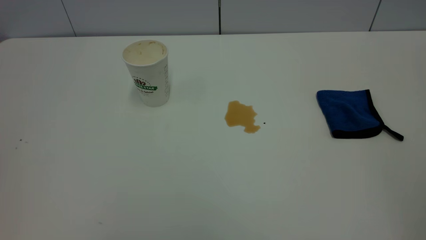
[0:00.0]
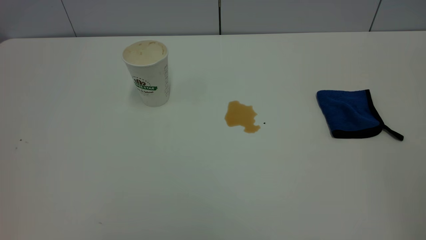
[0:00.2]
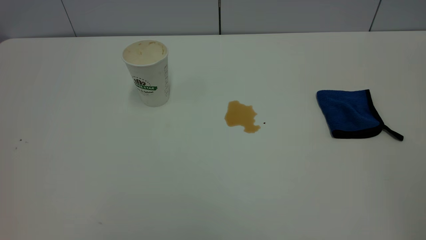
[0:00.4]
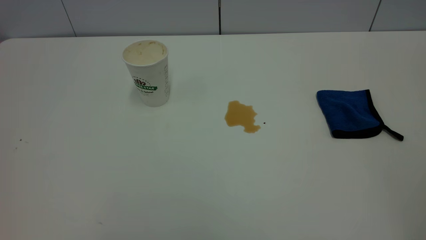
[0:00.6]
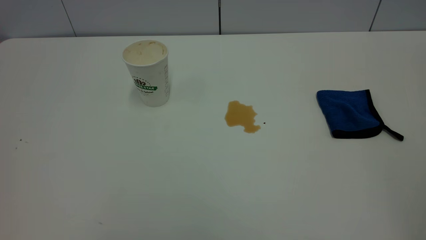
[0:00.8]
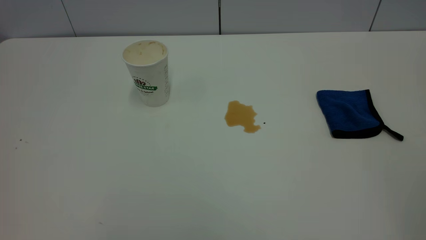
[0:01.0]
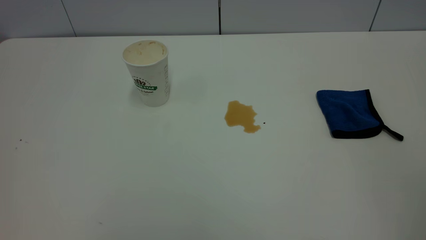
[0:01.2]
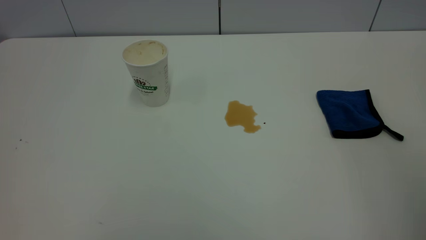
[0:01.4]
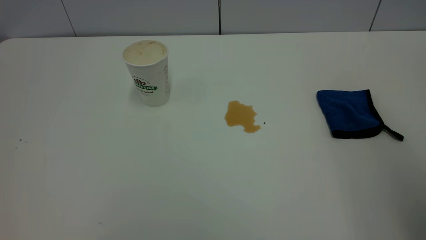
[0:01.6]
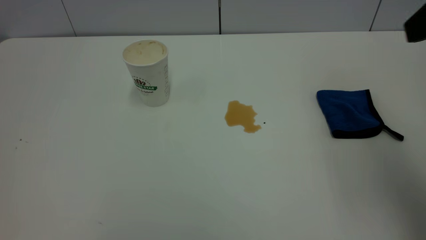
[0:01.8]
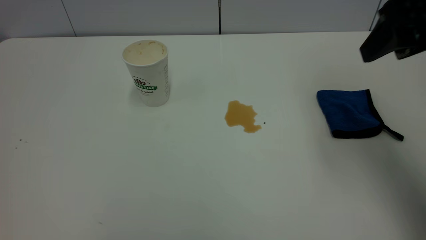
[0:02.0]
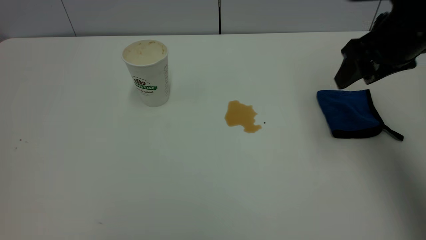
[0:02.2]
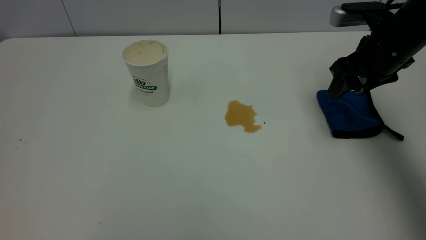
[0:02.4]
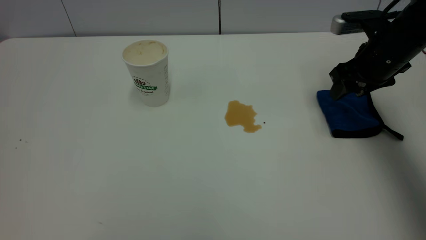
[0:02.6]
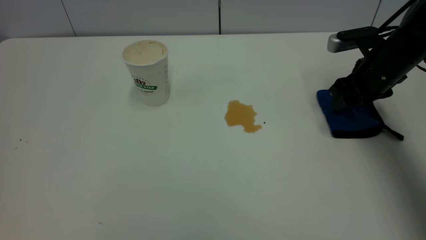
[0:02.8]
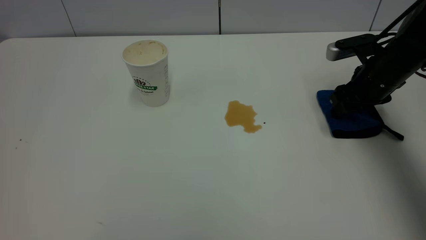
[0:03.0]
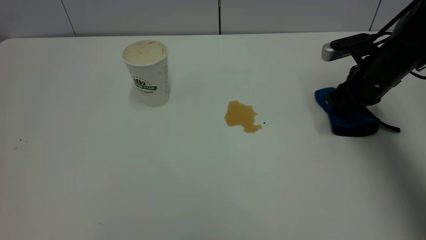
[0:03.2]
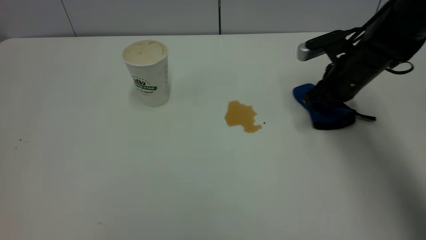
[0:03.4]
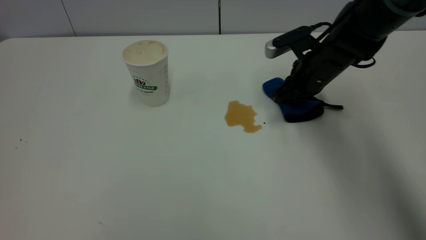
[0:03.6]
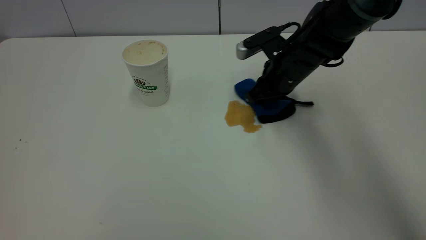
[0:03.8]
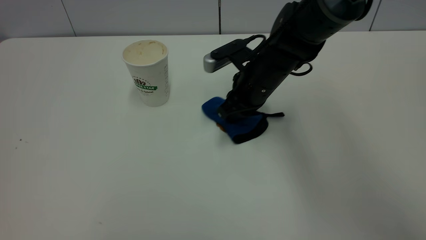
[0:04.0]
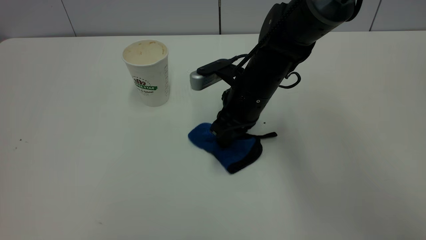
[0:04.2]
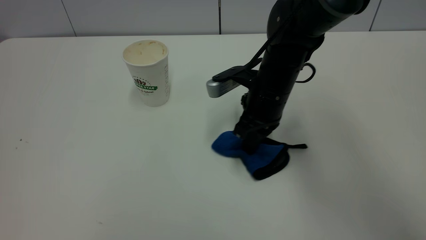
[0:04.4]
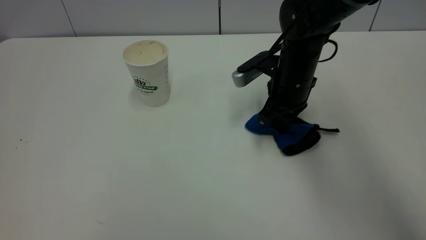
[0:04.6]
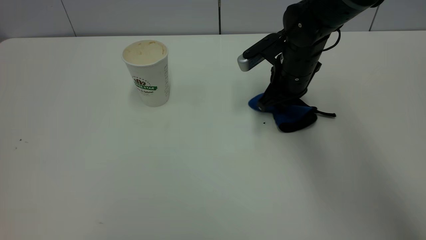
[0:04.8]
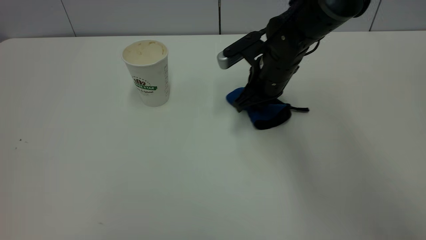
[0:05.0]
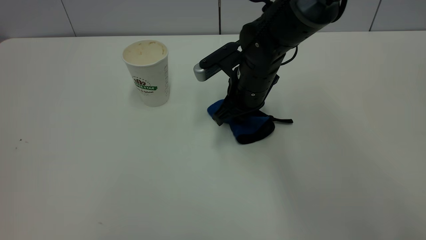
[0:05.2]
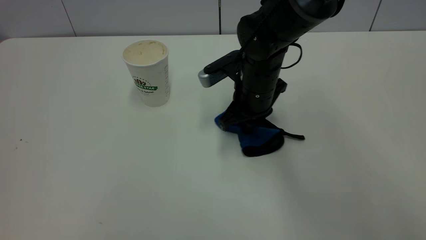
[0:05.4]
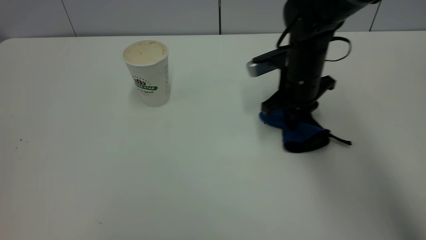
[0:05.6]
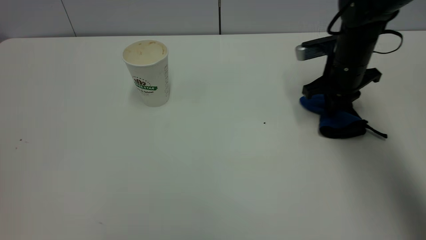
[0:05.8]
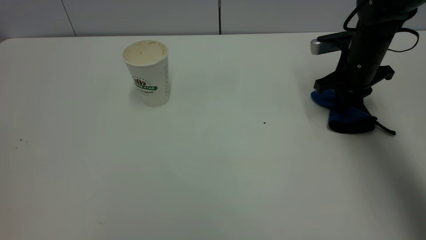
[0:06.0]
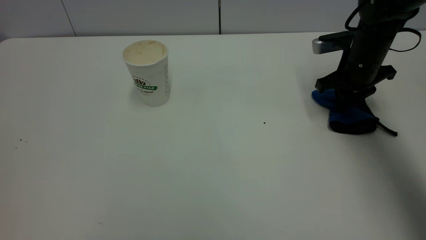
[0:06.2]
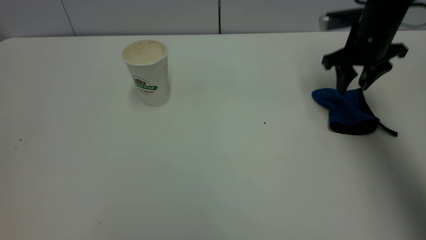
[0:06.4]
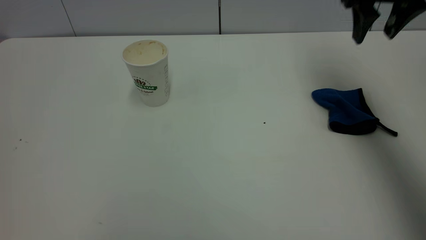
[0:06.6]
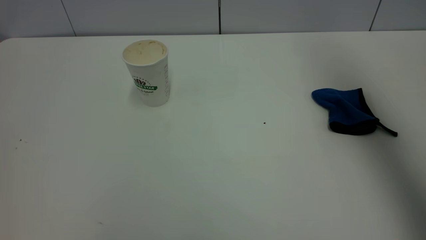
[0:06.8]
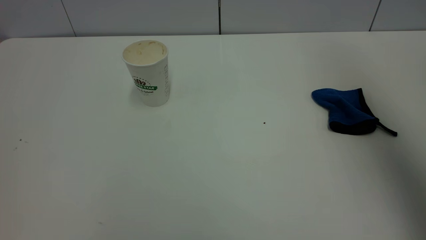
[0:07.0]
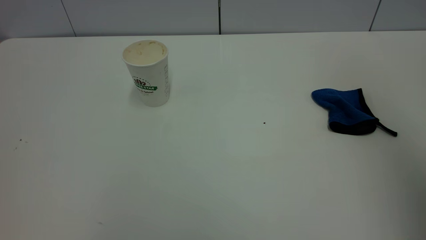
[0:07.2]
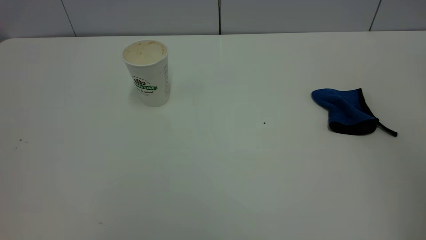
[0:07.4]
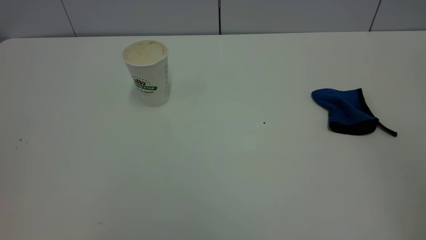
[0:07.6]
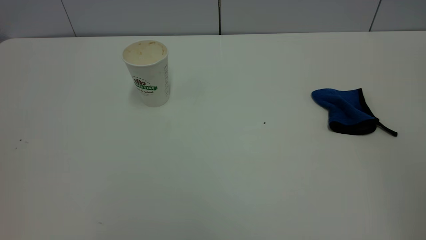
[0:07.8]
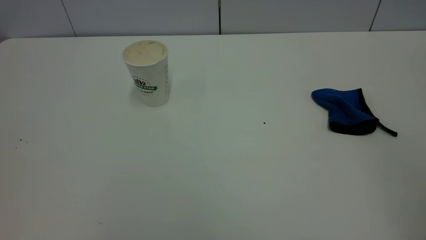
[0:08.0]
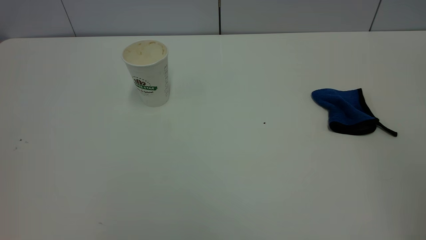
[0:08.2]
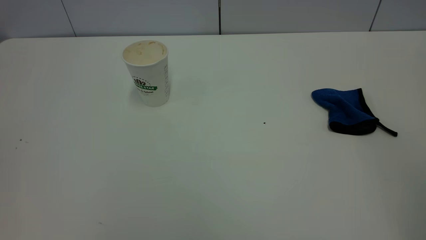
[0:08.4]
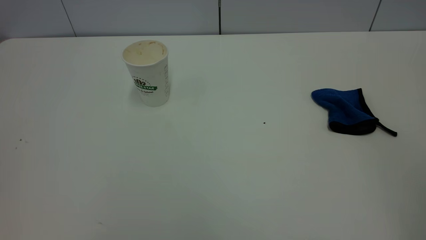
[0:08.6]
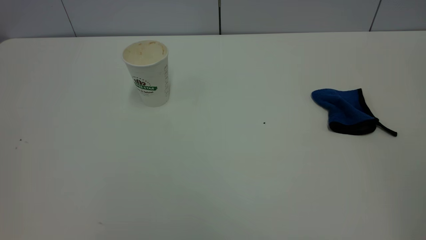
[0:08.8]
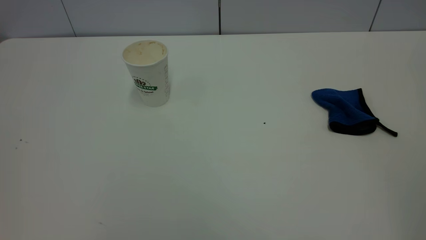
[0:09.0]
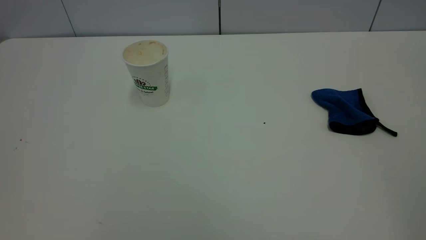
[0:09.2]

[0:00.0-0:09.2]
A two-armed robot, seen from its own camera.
Task of the whole recording: the left gripper pick up the fallen cup and place it upright, the right gripper grasp the blue rag and wipe the tea stain on the table, the right gripper put the blue rag back in its original position.
Step, 0:00.0 to 0:06.4: Wipe the stains off the table with a rag.
0:01.6 to 0:03.0: The right gripper is displaced downward and forward by some 35 cm.
0:03.0 to 0:04.6: The right gripper travels to the left by about 15 cm, and closes its fingers.
0:04.6 to 0:06.2: The right gripper travels to the right by roughly 10 cm, and opens its fingers.
0:06.2 to 0:07.6: The right gripper travels backward and upward by roughly 50 cm, and opens.
